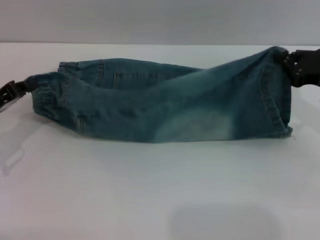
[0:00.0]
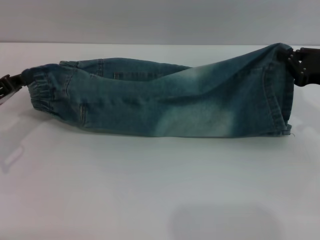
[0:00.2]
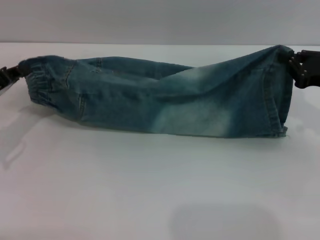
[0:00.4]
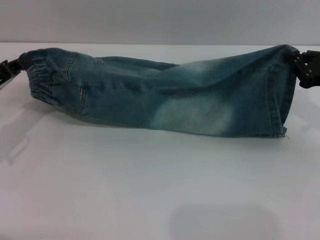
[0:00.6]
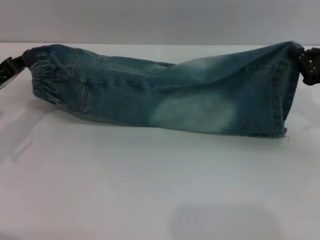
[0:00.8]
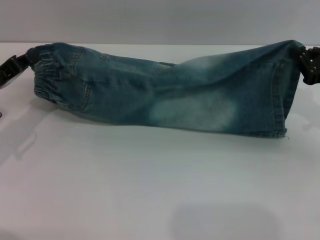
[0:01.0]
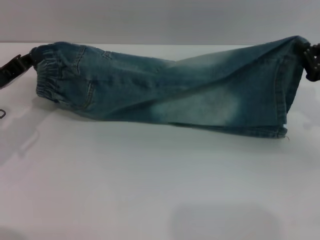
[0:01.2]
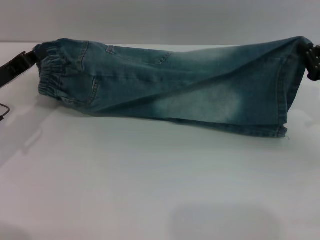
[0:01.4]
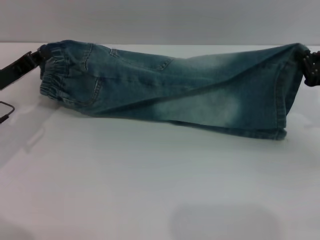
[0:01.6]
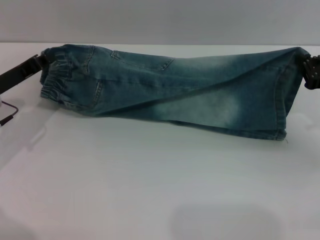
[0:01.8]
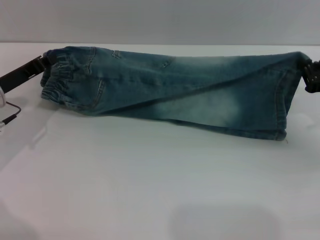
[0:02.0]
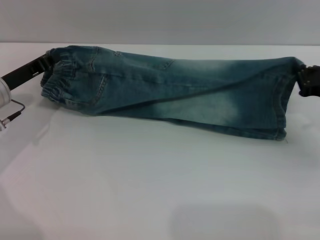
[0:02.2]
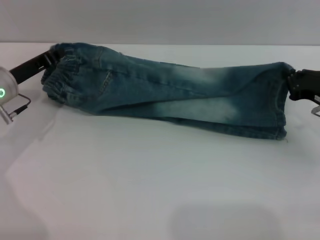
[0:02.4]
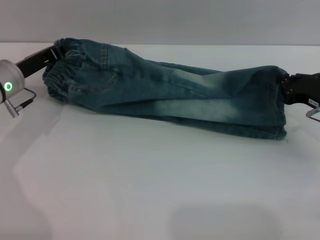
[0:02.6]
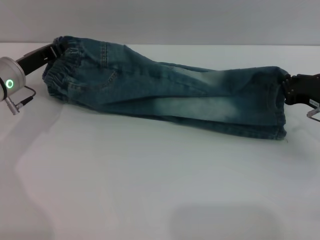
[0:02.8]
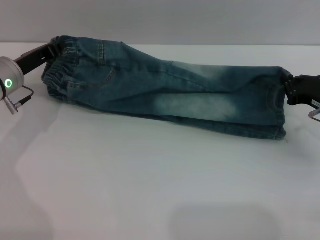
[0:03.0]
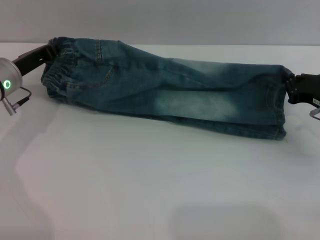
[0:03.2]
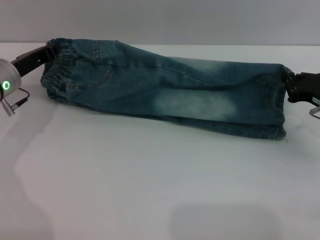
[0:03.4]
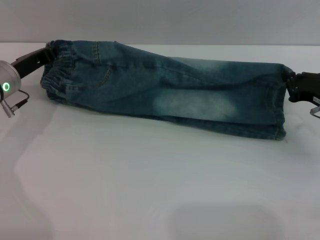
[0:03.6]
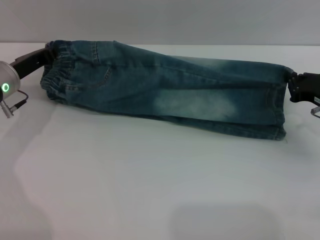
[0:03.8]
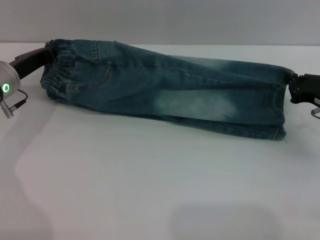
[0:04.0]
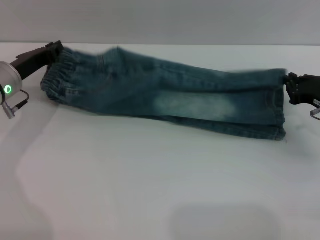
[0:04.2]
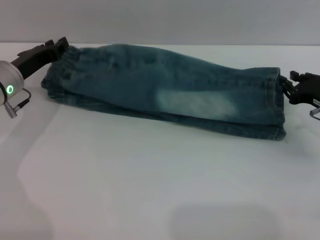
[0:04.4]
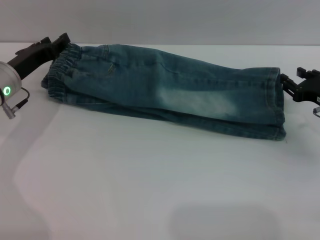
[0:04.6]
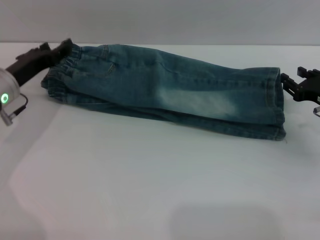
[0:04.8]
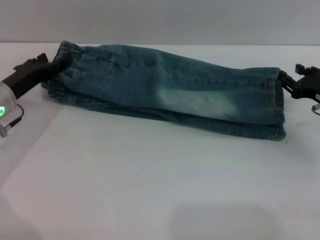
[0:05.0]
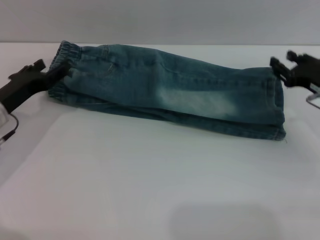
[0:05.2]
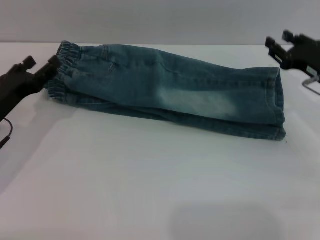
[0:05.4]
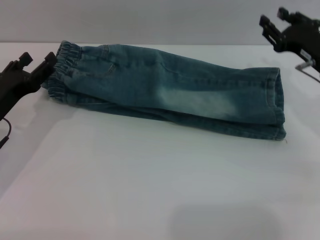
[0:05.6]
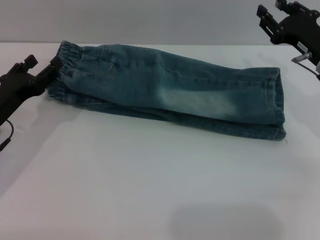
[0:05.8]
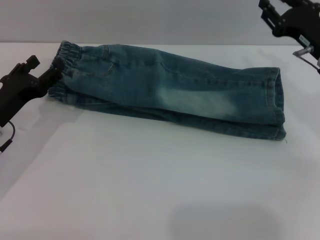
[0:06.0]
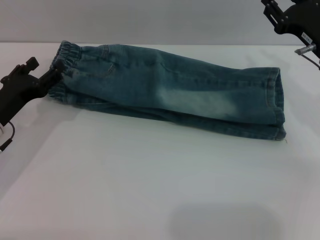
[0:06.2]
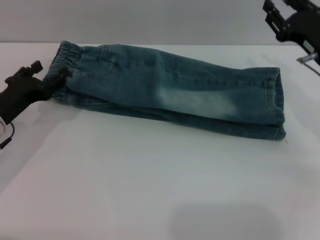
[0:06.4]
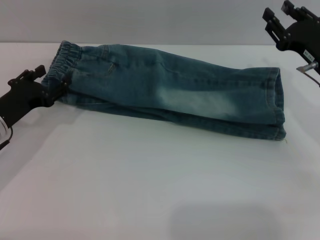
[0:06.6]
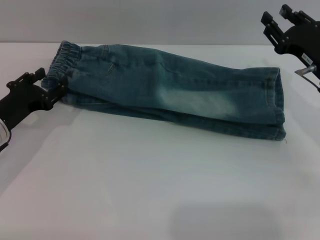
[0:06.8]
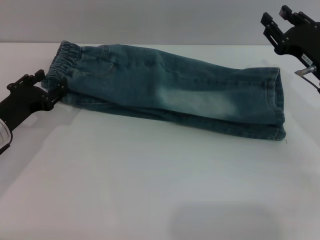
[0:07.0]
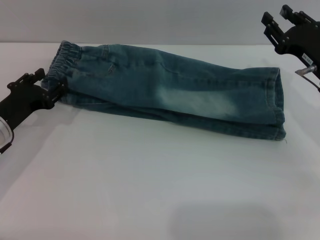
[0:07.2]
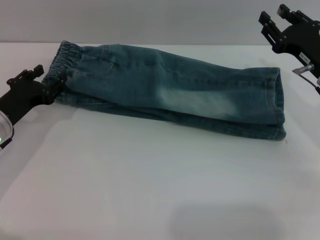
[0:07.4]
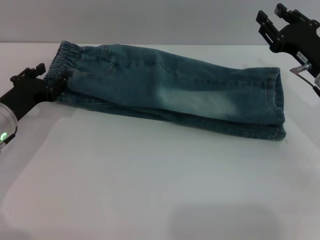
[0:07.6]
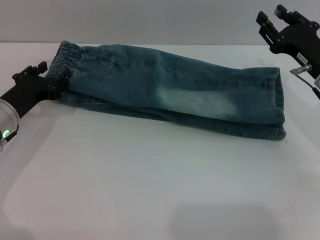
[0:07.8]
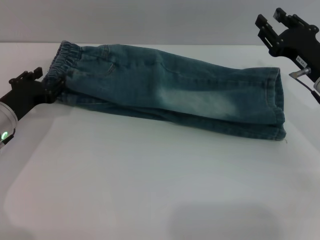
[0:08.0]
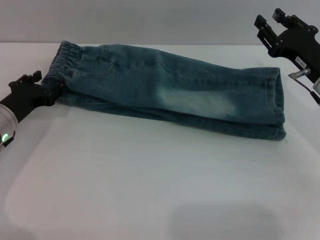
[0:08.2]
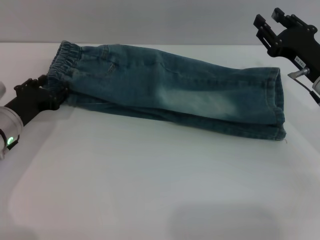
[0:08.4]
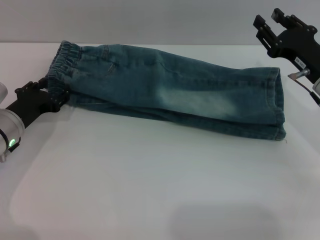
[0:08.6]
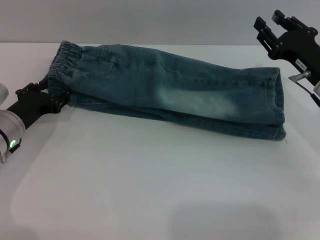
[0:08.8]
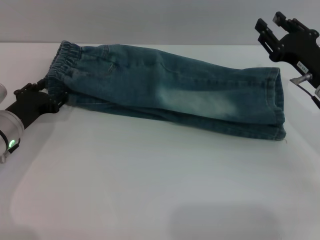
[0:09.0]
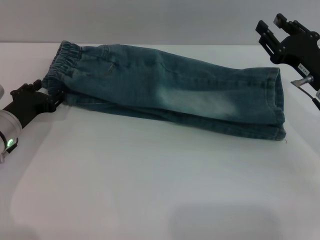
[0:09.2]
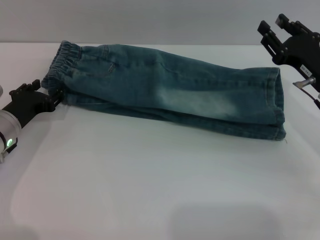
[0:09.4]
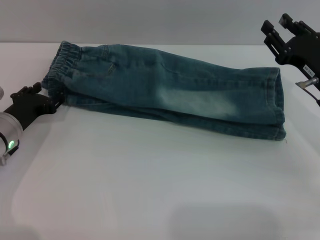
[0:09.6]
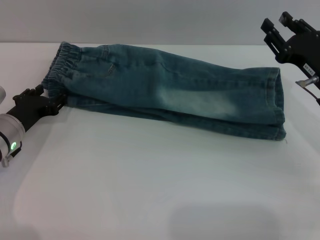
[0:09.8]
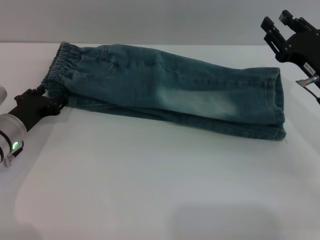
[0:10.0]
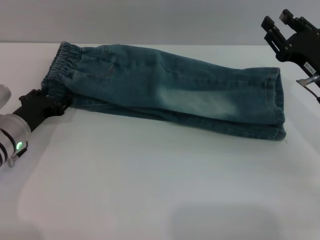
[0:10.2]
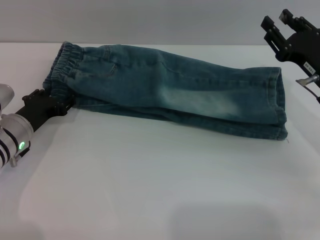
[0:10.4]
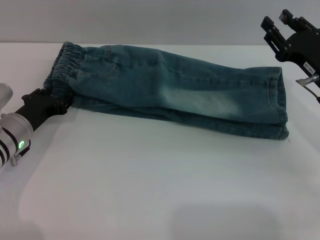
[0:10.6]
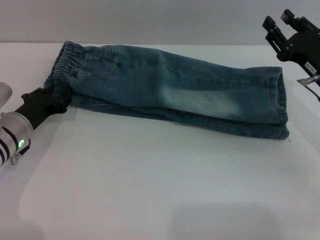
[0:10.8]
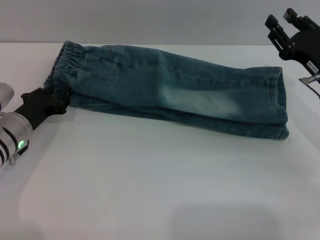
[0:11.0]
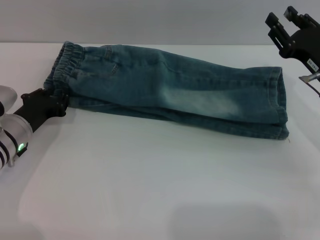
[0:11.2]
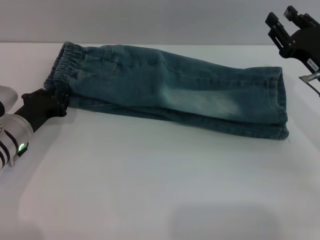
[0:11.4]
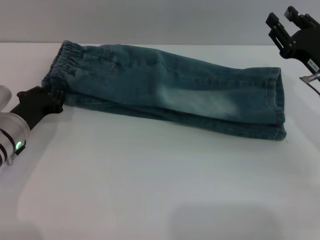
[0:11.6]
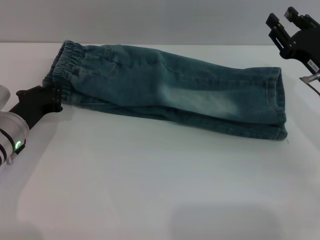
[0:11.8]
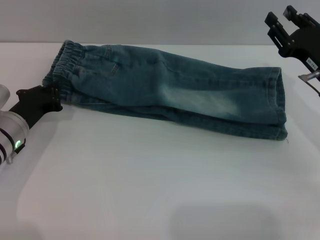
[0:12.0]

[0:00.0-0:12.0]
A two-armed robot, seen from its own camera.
Step, 0:00.0 to 0:09.0: Fold the bottom of the pants upward with both grippers.
0:00.0 to 0:01.6: The grippers stay close to where they were, moving slightly.
0:01.6 to 0:03.0: The left gripper heads forward, covering roughly 5 cm.
0:03.0 to 0:04.4: There are only small adjustments of the grippers.
0:04.4 to 0:06.0: The left gripper travels backward by some 10 cm, and opens, while the right gripper heads upward, covering some 5 cm, and opens.
0:07.6 to 0:10.4: There are only small adjustments of the grippers.
0:10.4 to 0:12.0: The left gripper closes.

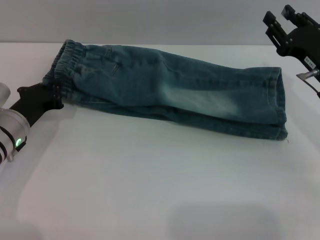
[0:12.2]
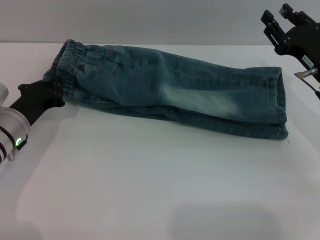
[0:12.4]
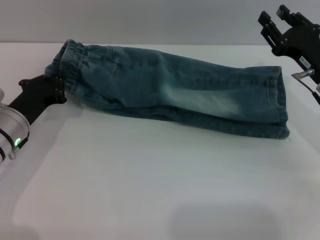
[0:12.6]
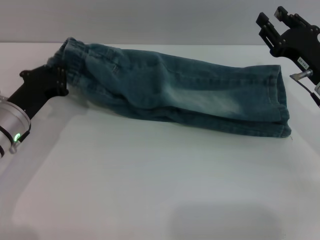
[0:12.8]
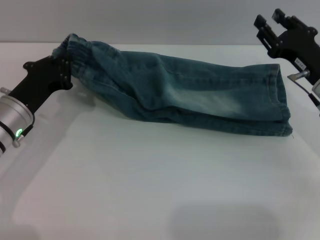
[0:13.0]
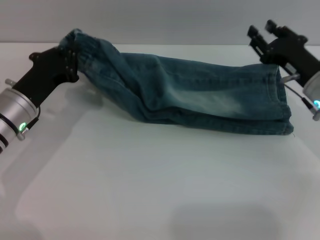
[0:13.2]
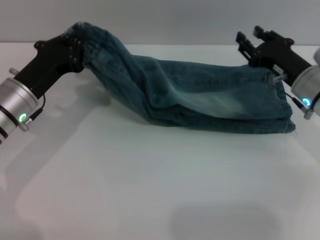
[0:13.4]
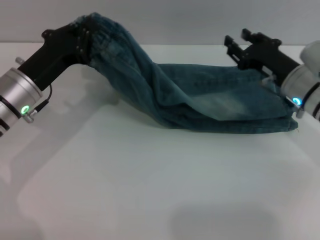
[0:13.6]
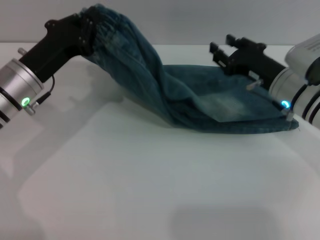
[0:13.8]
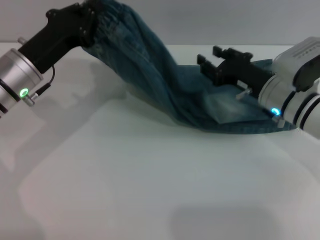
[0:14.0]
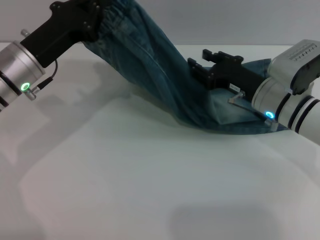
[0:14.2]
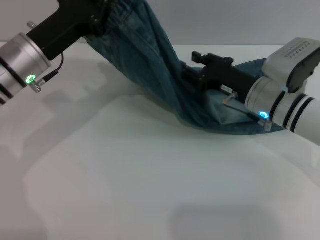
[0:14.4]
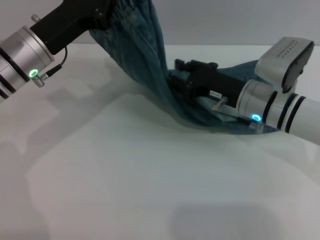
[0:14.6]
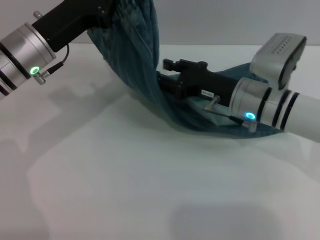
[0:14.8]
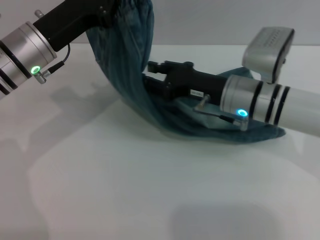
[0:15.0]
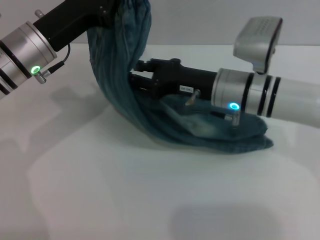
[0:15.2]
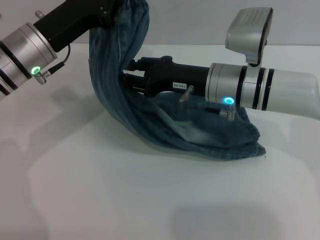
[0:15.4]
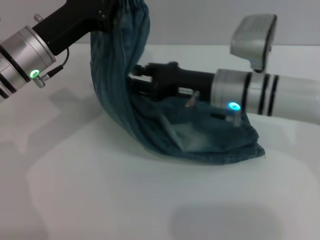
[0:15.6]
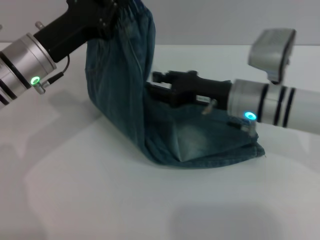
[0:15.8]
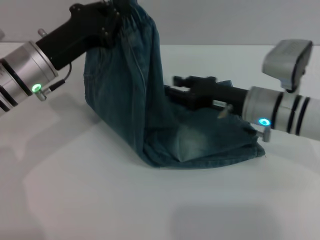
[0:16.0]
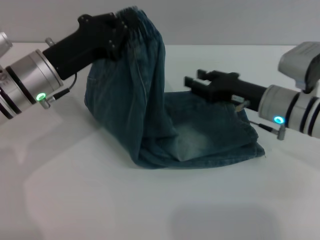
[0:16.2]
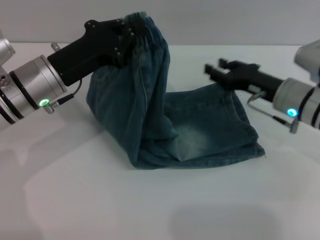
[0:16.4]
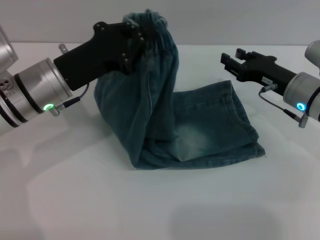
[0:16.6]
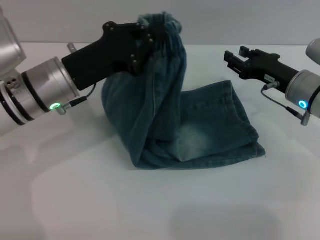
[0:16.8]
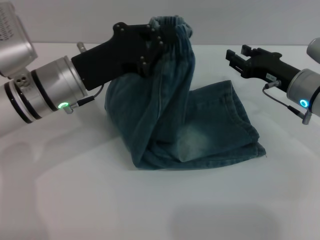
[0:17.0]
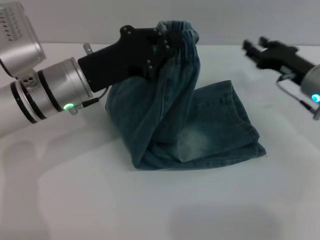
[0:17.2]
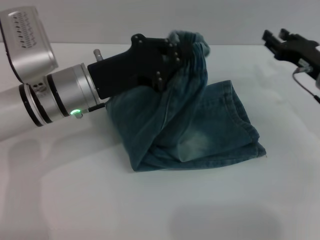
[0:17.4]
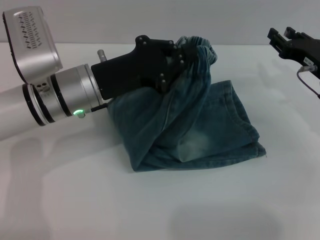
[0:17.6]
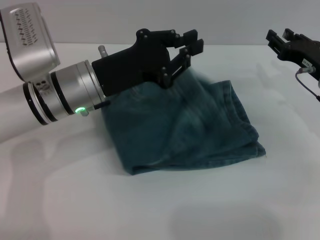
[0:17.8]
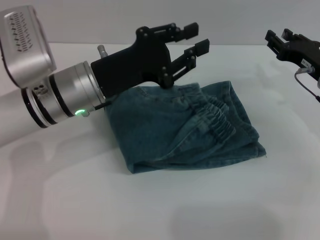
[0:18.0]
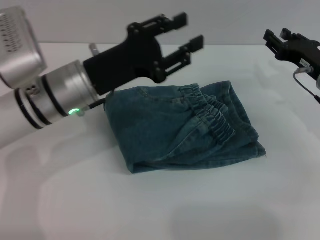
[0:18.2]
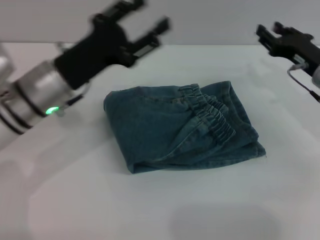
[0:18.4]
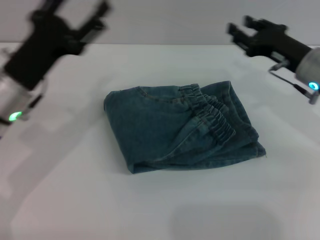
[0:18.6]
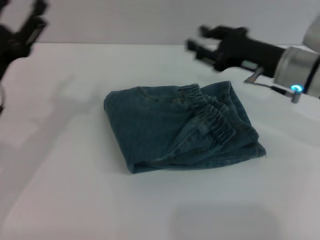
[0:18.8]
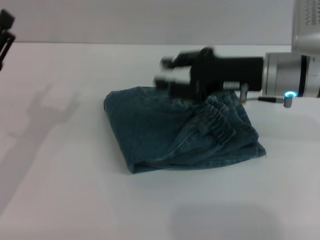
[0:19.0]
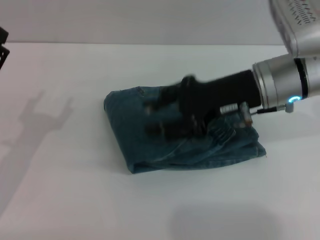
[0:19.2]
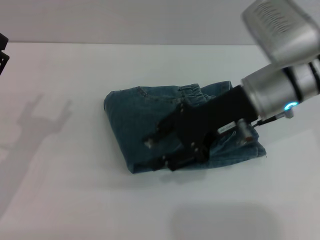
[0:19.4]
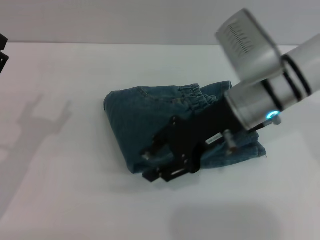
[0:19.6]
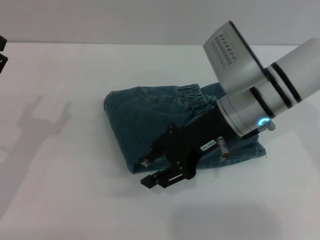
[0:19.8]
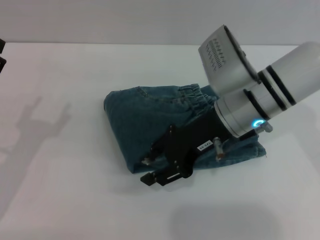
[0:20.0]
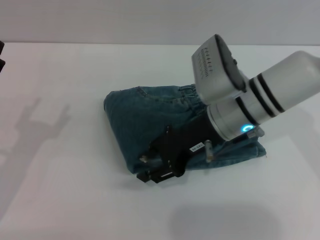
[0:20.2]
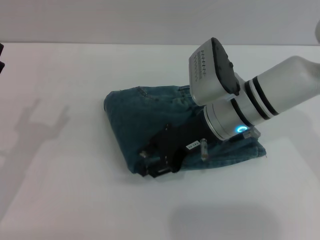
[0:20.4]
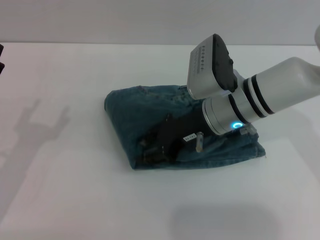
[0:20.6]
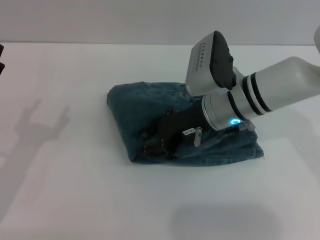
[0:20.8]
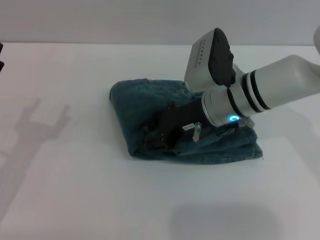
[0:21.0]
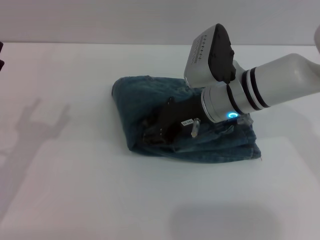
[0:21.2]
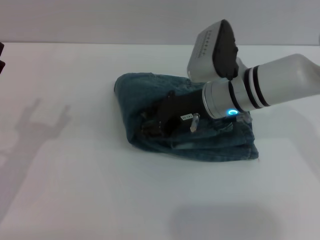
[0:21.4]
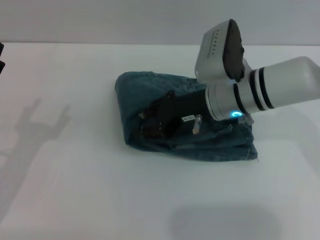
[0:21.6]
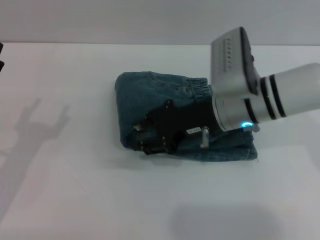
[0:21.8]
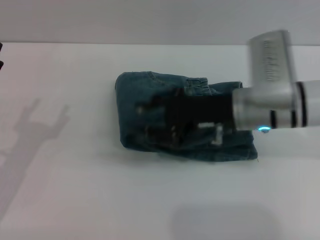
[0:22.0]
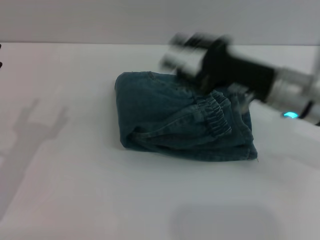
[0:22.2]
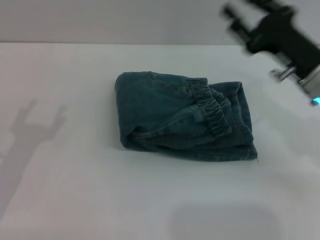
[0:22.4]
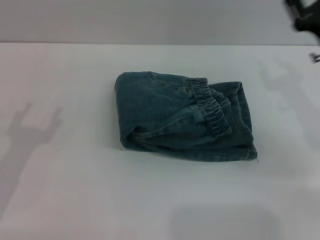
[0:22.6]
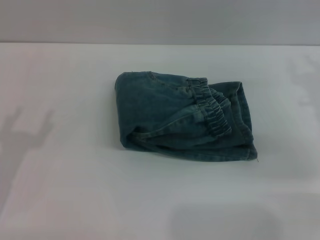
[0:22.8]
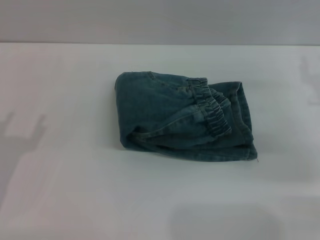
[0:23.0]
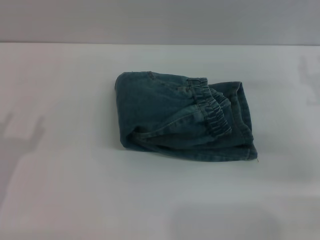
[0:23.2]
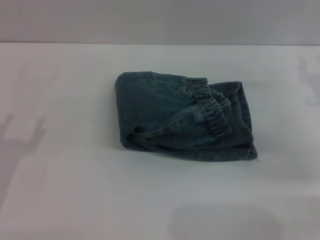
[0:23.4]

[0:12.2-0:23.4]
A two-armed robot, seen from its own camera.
Step, 0:12.2 to 0:18.4: Fold the pants from left to right with the left gripper.
Step, 0:18.6 to 0:22.0: Place the folded trousers onto the center area with the right grippers.
0:12.2 to 0:13.8: The left gripper is displaced upward by roughly 10 cm. The right gripper heads to the left, covering some 5 cm.
0:13.8 to 0:15.4: The right gripper moves to the left, roughly 10 cm; the left gripper moves approximately 5 cm.
0:15.4 to 0:17.0: The left gripper moves about 5 cm. Meanwhile the right gripper moves to the right, approximately 15 cm.
0:17.0 to 0:18.6: The left gripper moves to the left, some 5 cm, and opens its fingers.
0:18.6 to 0:20.2: The right gripper goes some 15 cm to the left; the left gripper shifts roughly 10 cm backward and to the left.
0:20.2 to 0:21.8: There are only small adjustments of the grippers.
0:21.8 to 0:23.4: The right gripper shifts roughly 20 cm to the right.
